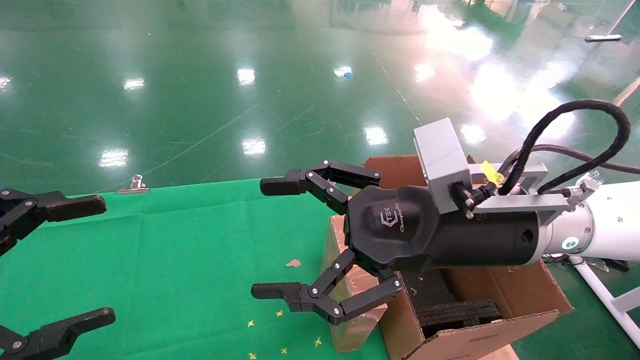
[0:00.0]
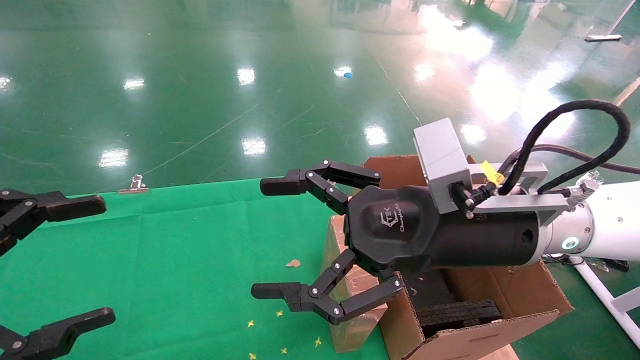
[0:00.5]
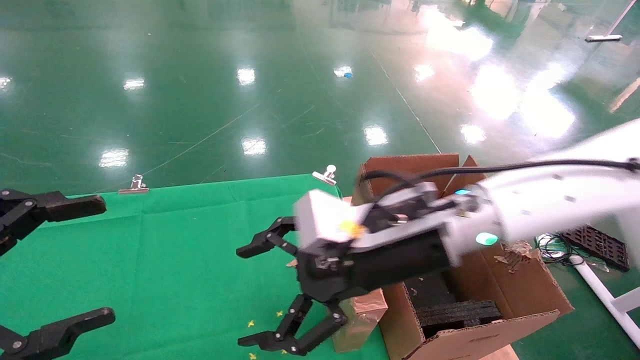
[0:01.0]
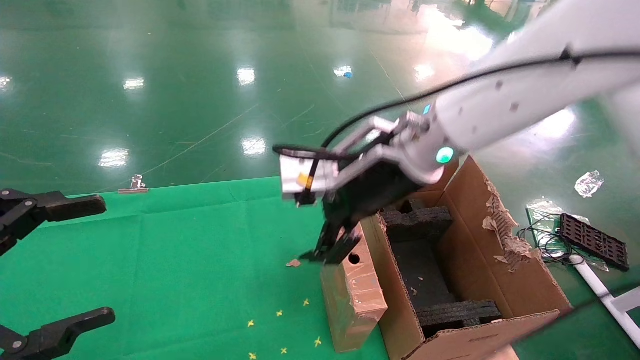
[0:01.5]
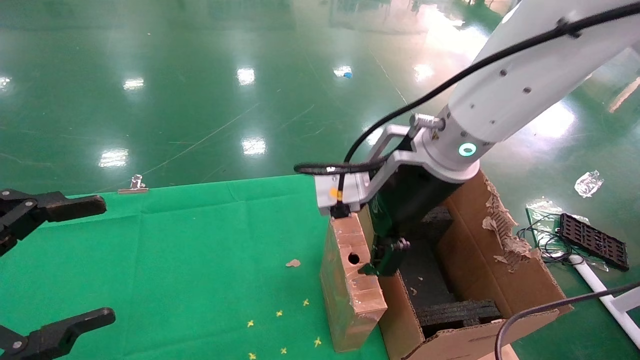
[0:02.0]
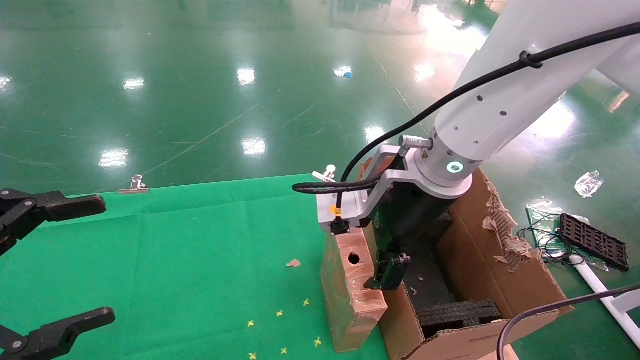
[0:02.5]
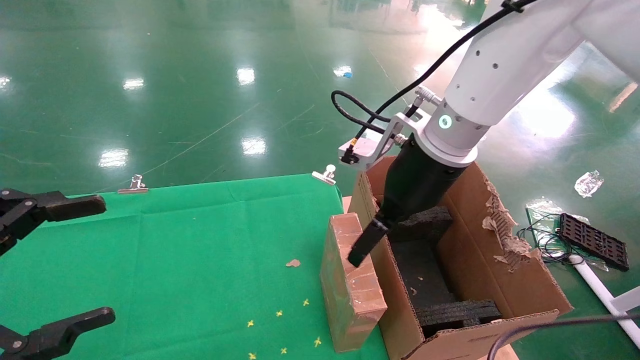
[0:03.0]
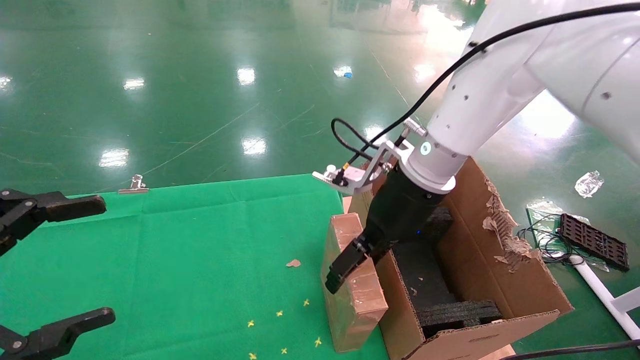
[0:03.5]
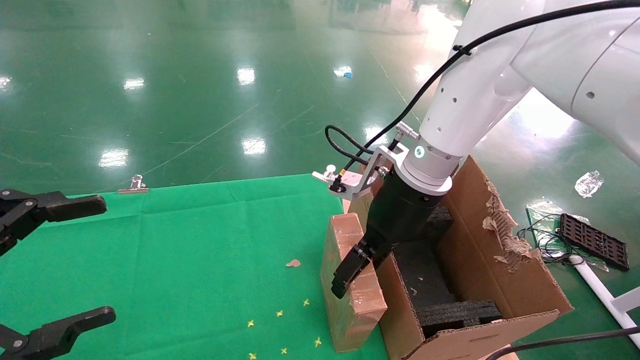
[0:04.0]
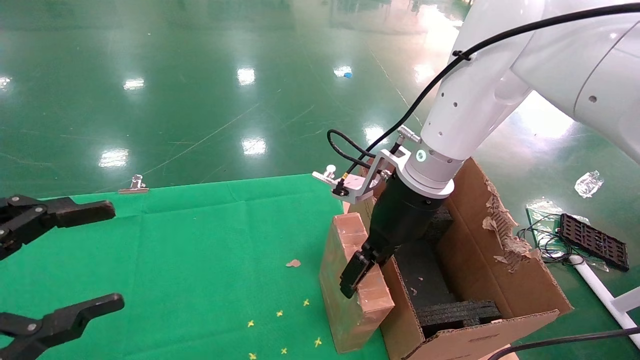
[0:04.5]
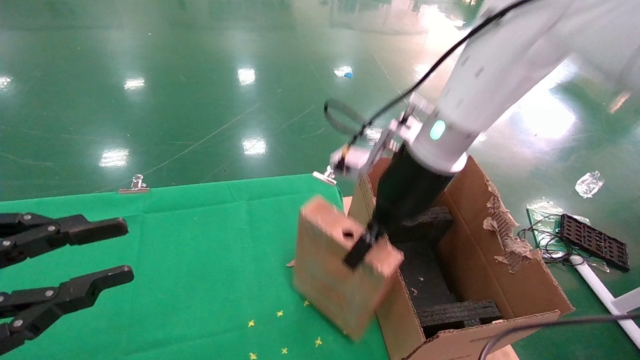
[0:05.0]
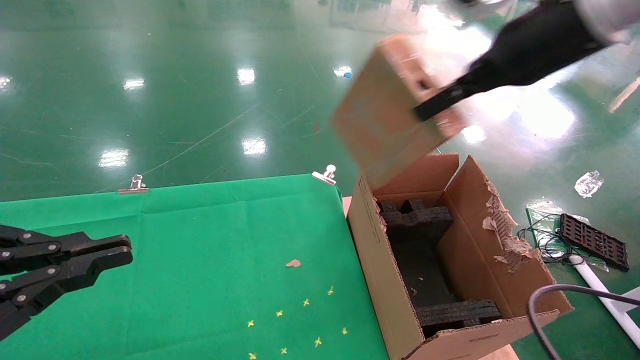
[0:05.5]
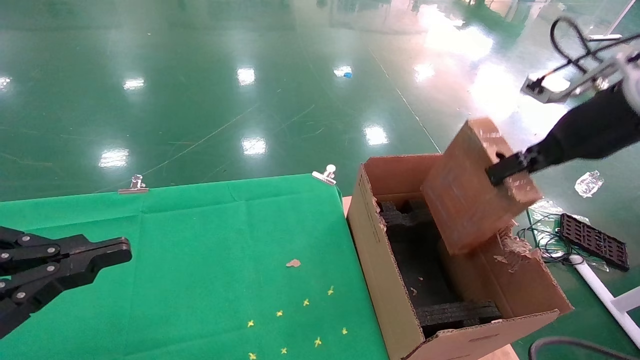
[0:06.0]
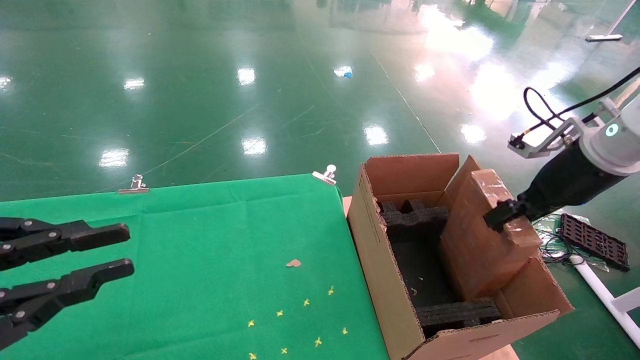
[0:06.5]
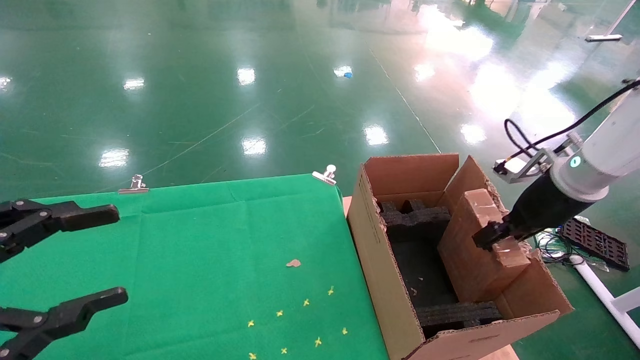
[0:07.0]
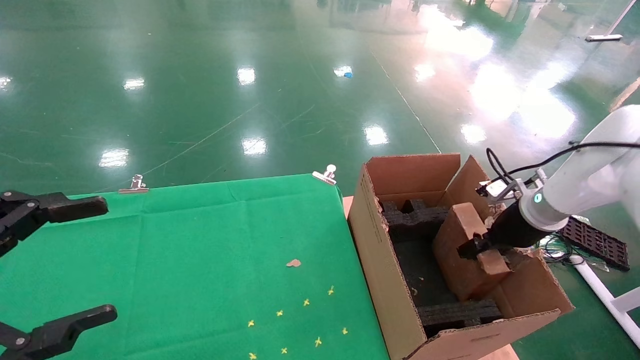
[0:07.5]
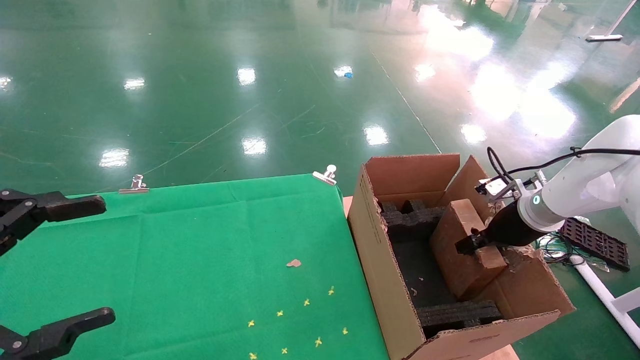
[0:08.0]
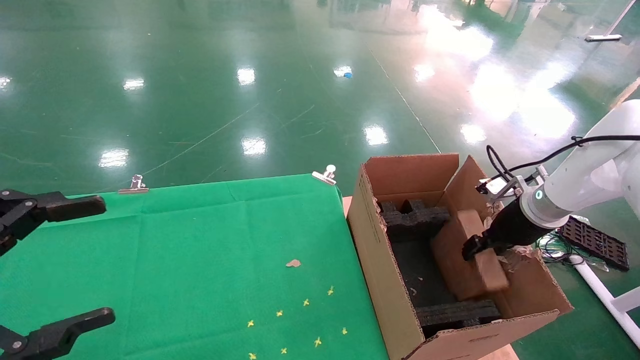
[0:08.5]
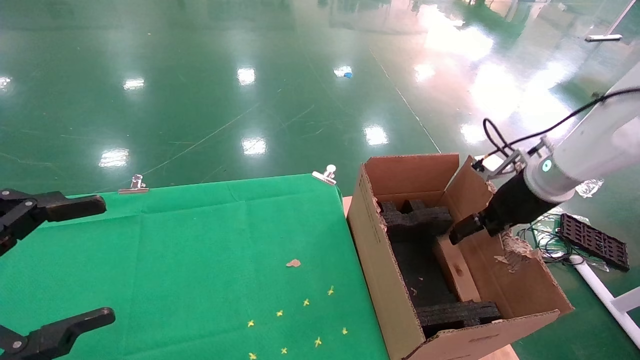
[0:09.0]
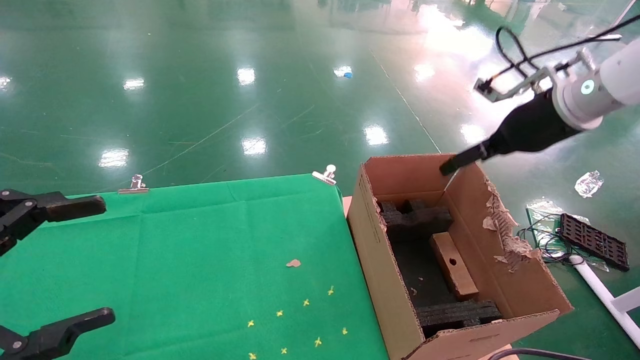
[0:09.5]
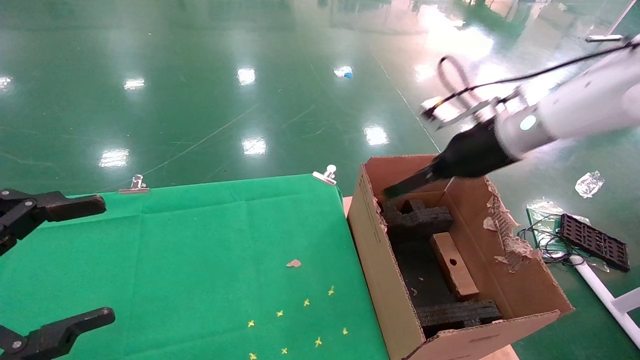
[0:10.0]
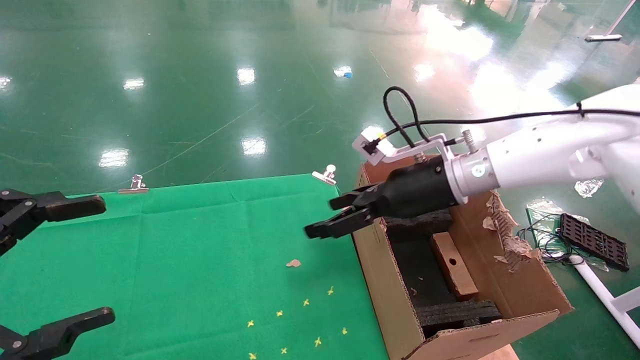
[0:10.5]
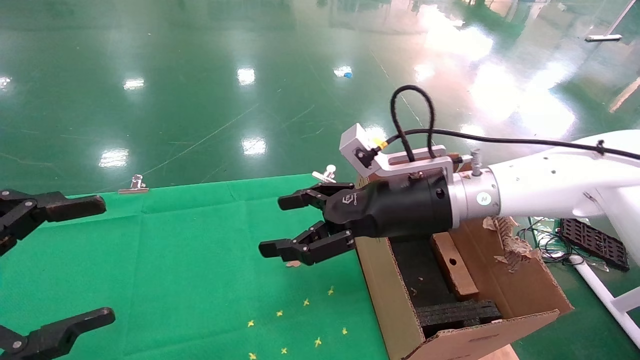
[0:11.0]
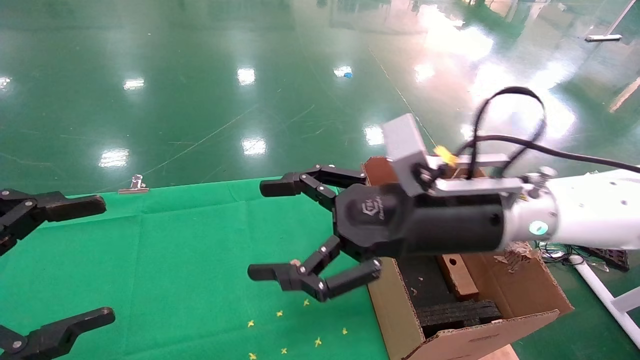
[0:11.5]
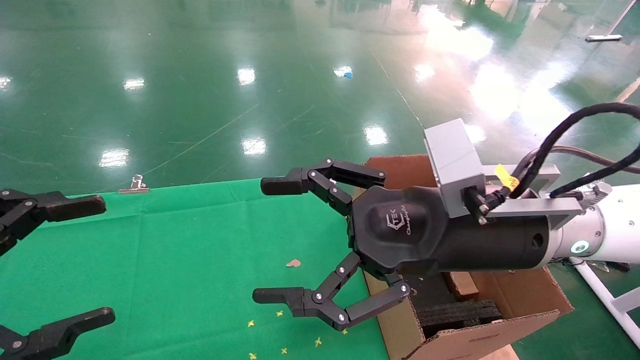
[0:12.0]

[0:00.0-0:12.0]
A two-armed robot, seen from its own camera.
Task of the whole recording: using a robotic arm to pick up a cardboard box and palace it the carton.
Step, 0:01.0 to 0:04.5: Pick up the mouse and the power cord paper box.
Step, 0:05.0 to 0:08.5: Place the mouse and the power cord paper box into the container.
0:00.0 to 0:02.0: The right gripper goes approximately 5 cm forward.
0:02.0 to 0:04.0: The right gripper goes approximately 5 cm forward.
0:04.0 to 0:06.0: The left gripper closes up. The right gripper moves to the right, some 25 cm, and closes its fingers.
0:06.0 to 0:08.0: The left gripper opens up, while the right gripper heads downward and forward, covering about 20 cm.
0:08.0 to 0:10.0: The right gripper moves upward and to the left, roughly 15 cm, and opens up.
0:10.0 to 0:12.0: The right gripper goes some 20 cm backward and to the left.

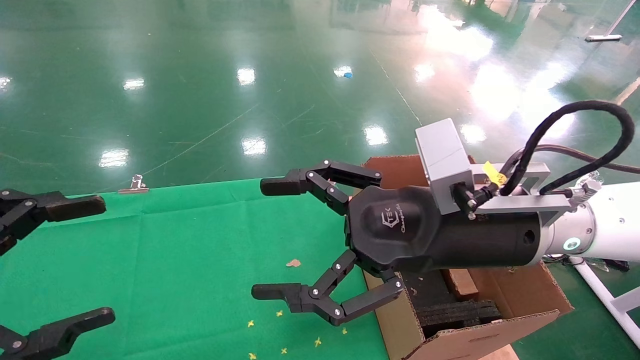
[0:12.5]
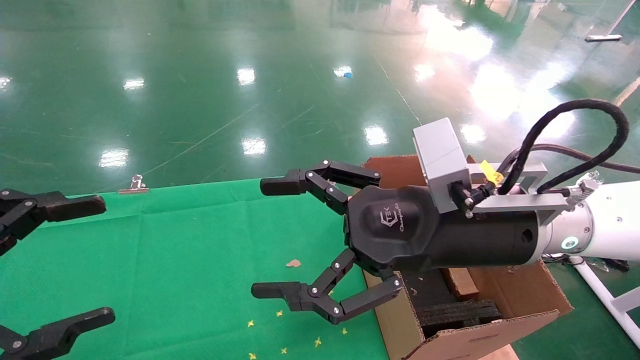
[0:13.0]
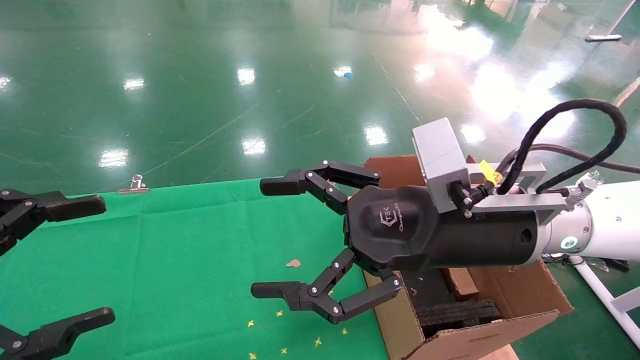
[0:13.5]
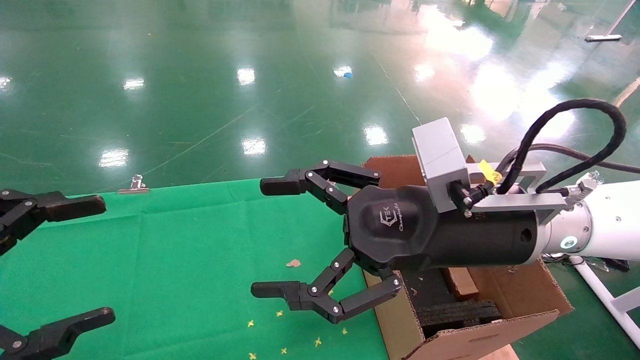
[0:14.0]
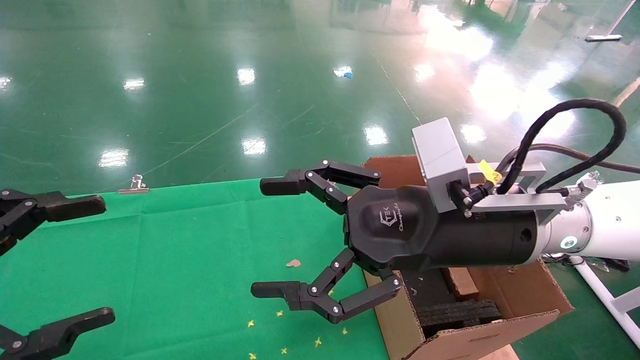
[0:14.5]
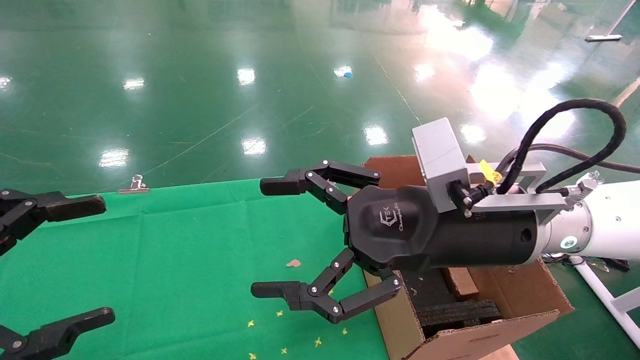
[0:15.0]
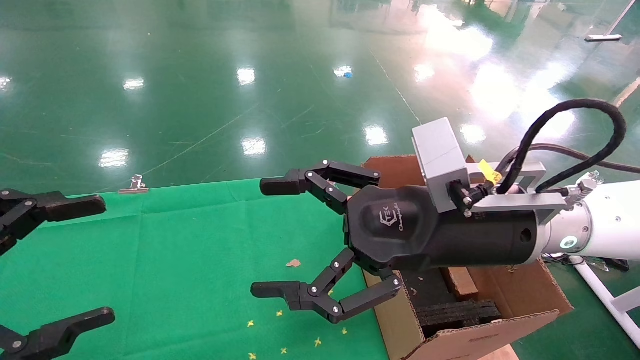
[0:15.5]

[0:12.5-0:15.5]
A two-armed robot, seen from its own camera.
Task of the whole recording: using a robotic arm to pick up a cardboard box and palace it the carton.
0:12.5 to 0:15.5: Both grippers stay about where they are.
